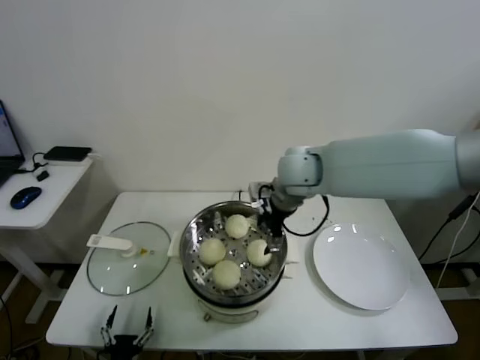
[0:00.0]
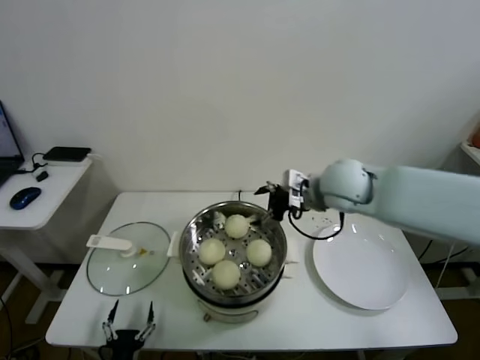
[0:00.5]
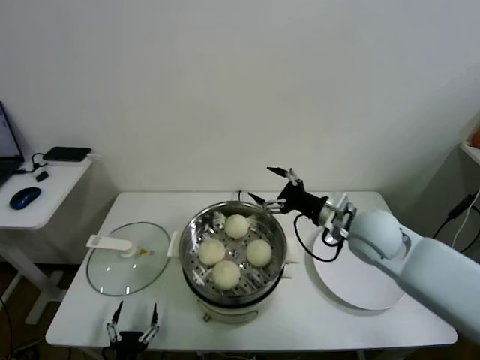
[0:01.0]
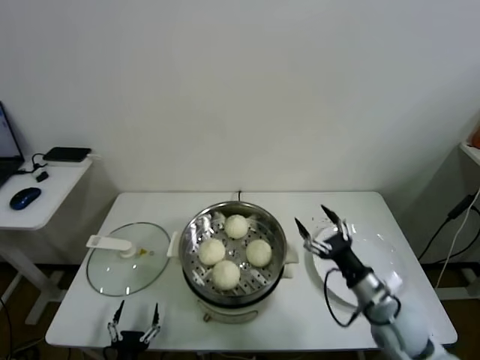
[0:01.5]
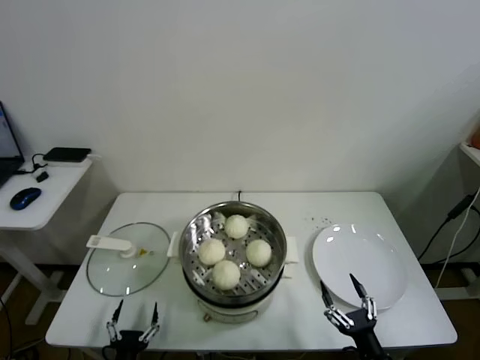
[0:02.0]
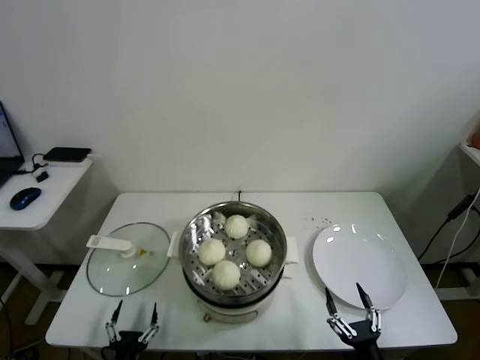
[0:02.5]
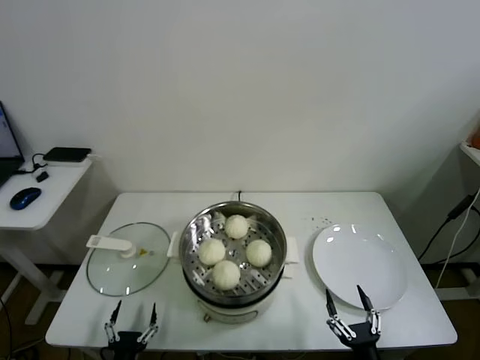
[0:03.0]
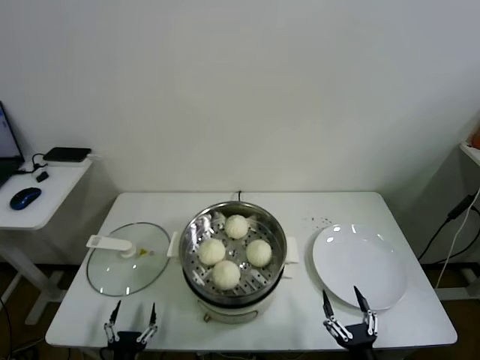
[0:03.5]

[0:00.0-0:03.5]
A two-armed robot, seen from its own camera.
Task of the whole recording: take steamed baozi put them in steamer.
0:00.0 to 0:02.0: The right gripper is displaced backward, downward and to the right by roughly 50 cm.
0:02.0 to 0:03.5: The right gripper moves roughly 5 cm.

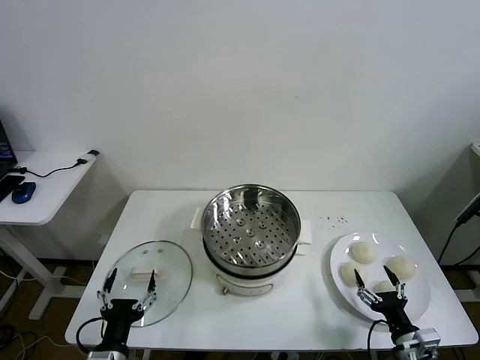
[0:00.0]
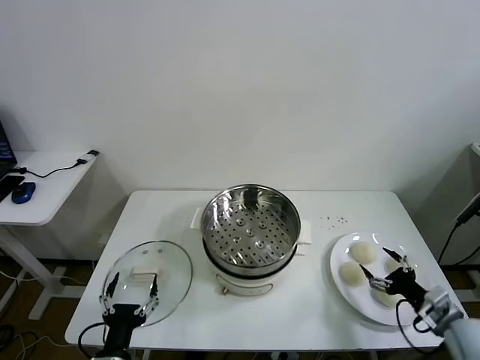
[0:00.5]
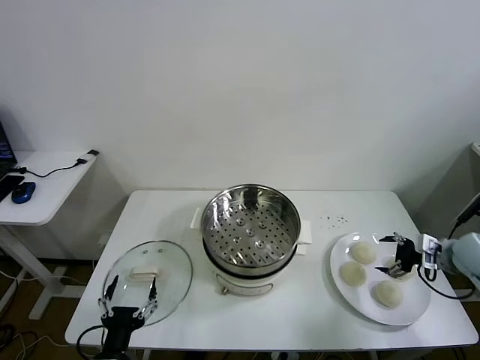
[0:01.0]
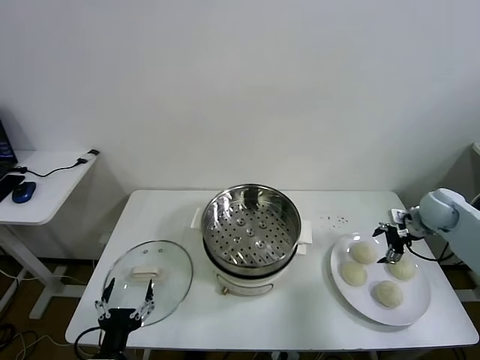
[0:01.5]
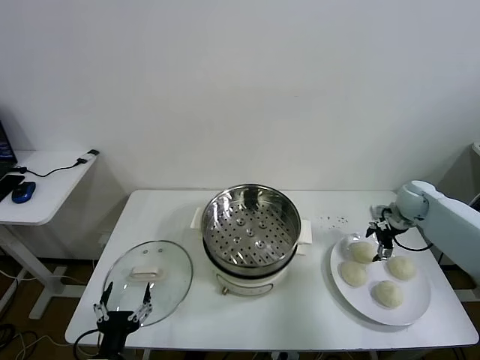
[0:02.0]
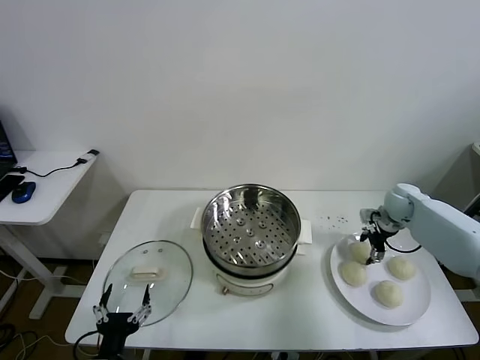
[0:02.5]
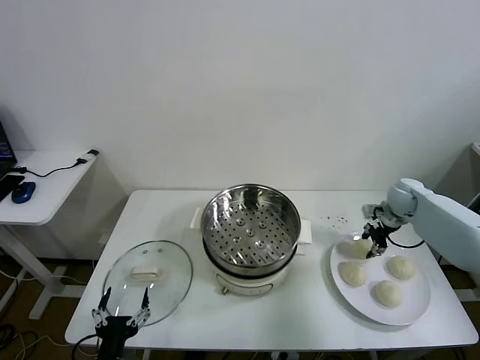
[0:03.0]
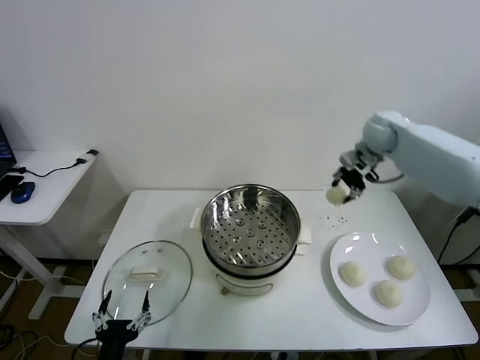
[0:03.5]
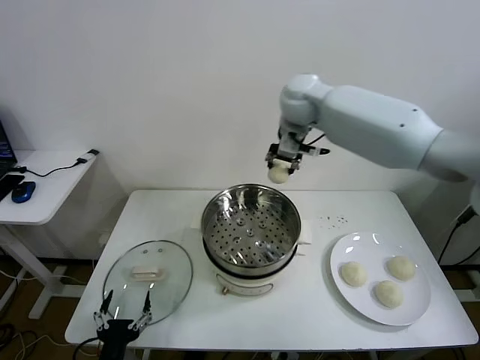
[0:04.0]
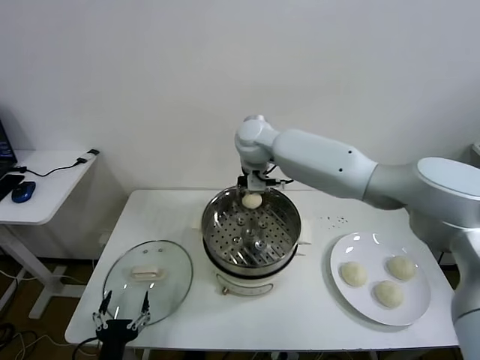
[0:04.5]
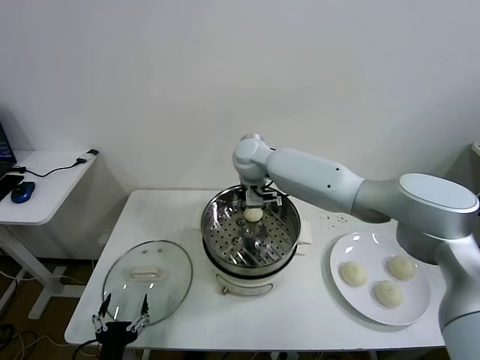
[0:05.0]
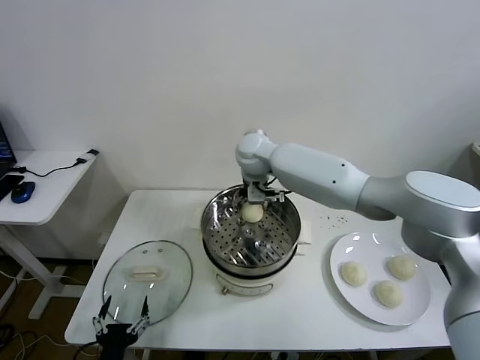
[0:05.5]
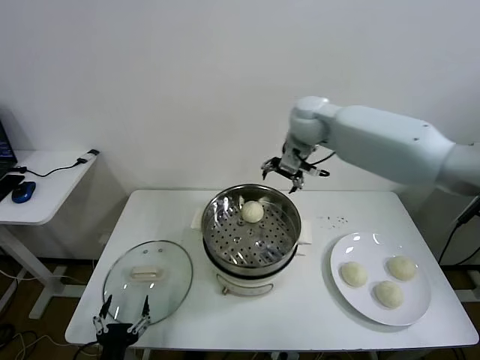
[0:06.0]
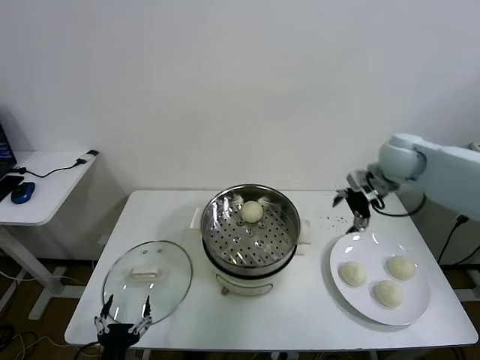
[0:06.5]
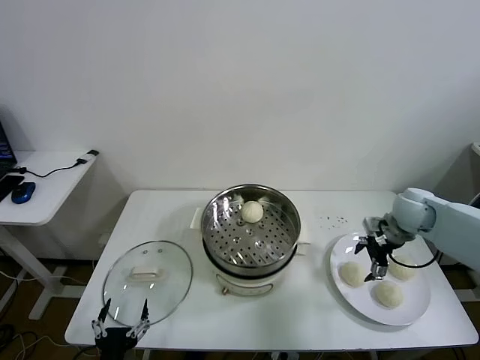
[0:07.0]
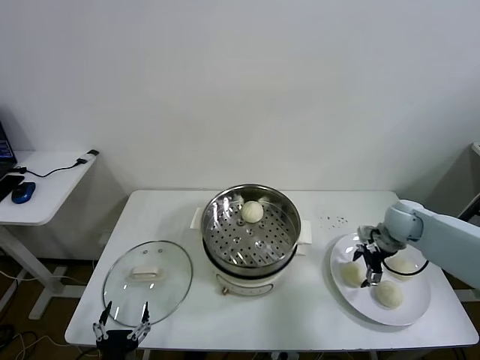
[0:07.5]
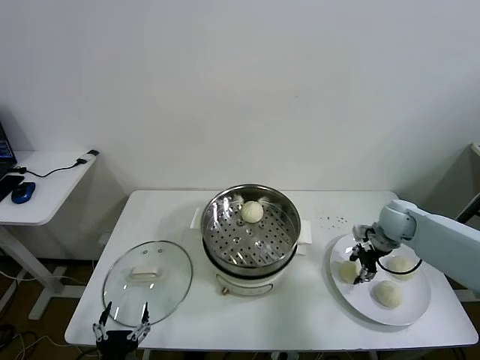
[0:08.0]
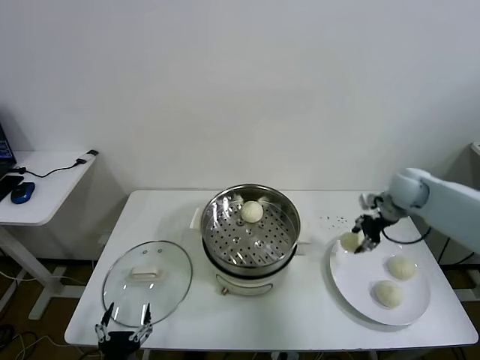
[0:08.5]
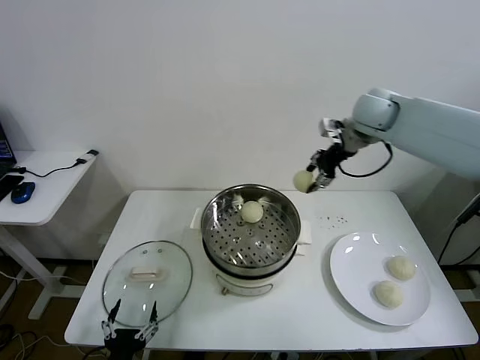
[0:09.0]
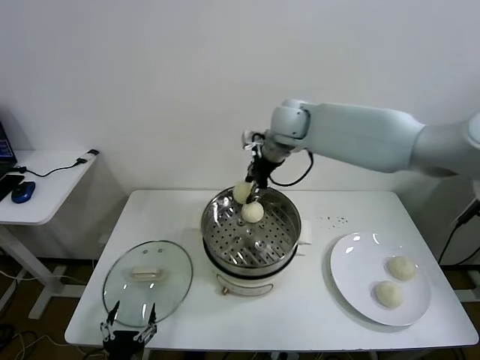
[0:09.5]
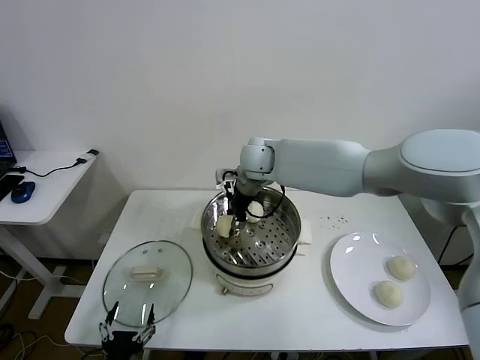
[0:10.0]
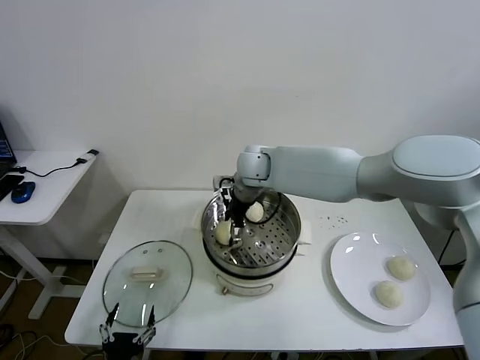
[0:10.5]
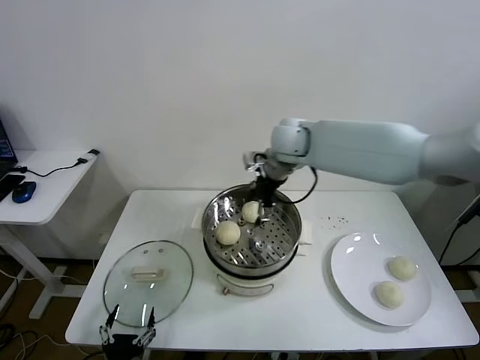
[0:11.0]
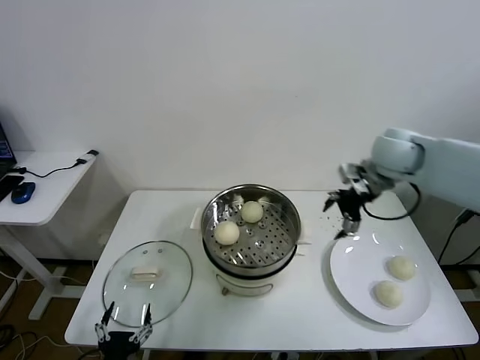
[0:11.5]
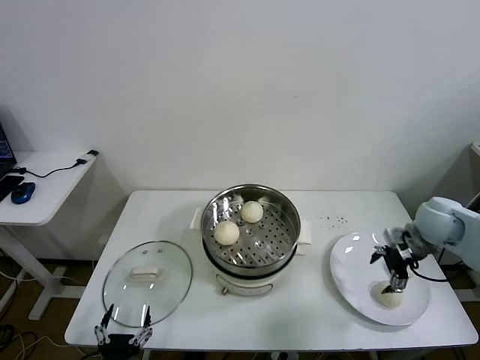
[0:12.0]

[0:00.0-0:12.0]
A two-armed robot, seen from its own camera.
Task of the whole recording: take steamed baozi put them in steamer.
Step, 0:00.0 to 0:02.5: Grasp the baozi in the plate with right gripper.
Step, 0:03.0 to 0:05.5: Place the baozi on the steamer with right gripper.
Step, 0:06.0 to 0:08.0: Grasp the baozi in the plate with right gripper.
Step, 0:08.5 to 0:10.5: Place the baozi on the steamer with right gripper.
0:02.0 to 0:04.0: The right gripper is displaced to the left and upward by some 40 cm, and closes.
0:04.0 to 0:06.0: The right gripper shifts roughly 10 cm to the right, and opens its fingers.
0:06.0 to 0:08.0: The right gripper travels downward and to the right by some 30 cm, and closes up.
0:08.0 to 0:10.0: The right gripper travels to the left by about 35 cm.
0:10.0 to 0:12.0: The right gripper goes some 40 cm to the right, and opens its fingers.

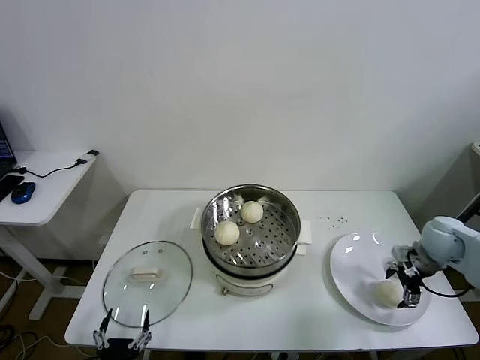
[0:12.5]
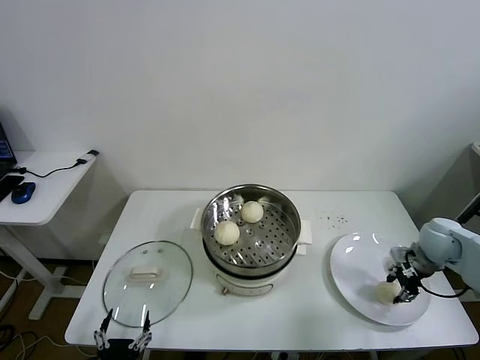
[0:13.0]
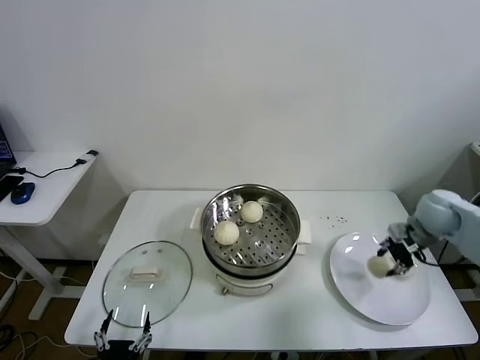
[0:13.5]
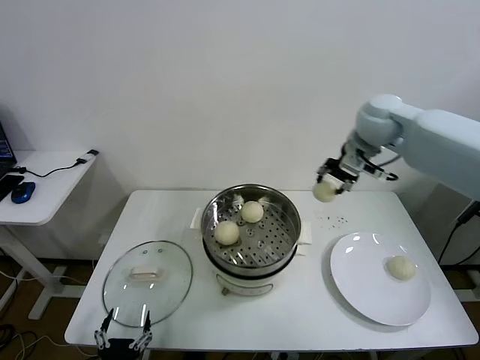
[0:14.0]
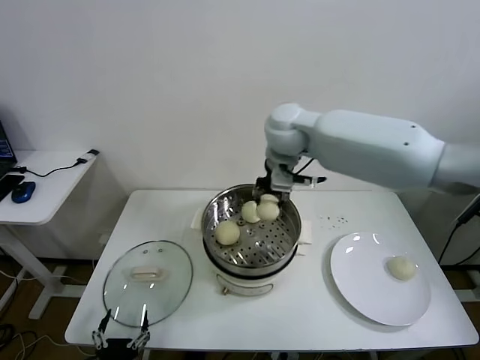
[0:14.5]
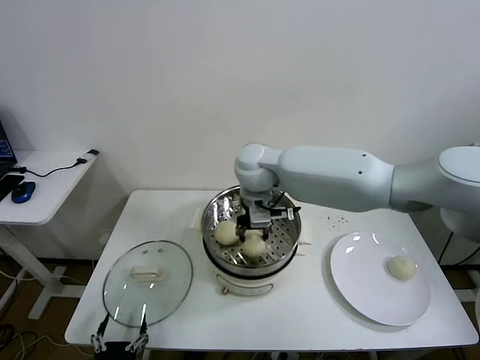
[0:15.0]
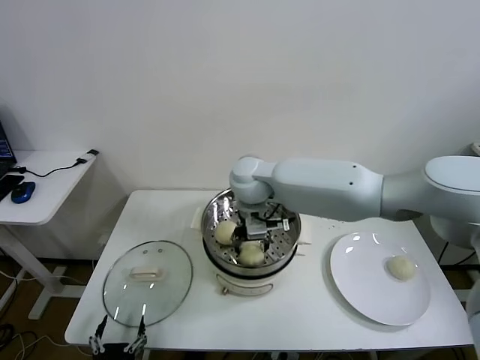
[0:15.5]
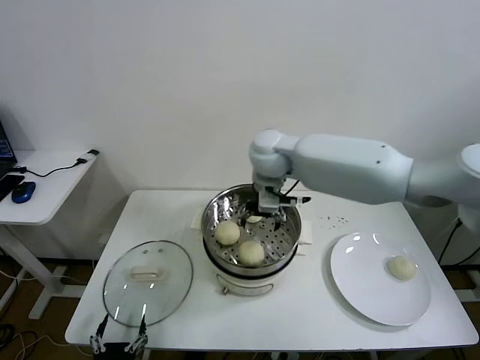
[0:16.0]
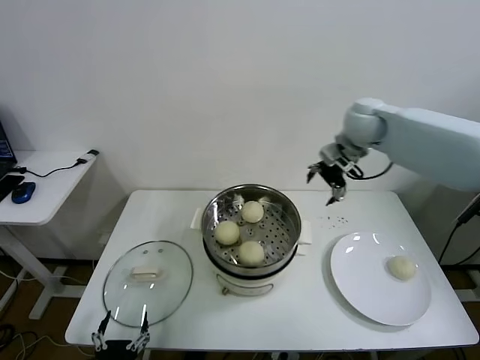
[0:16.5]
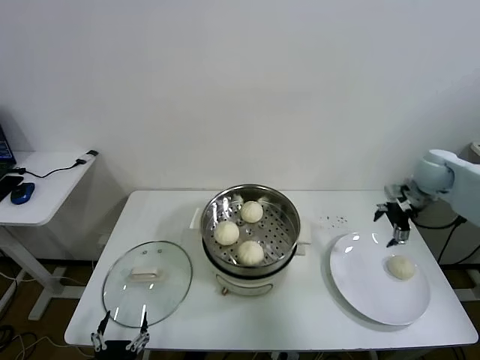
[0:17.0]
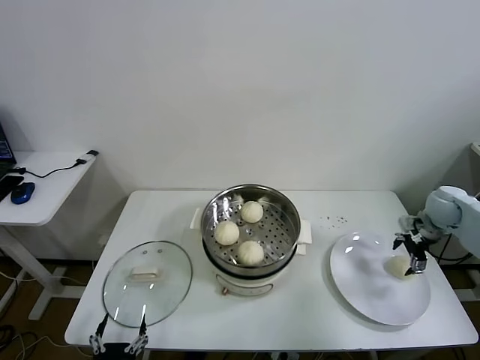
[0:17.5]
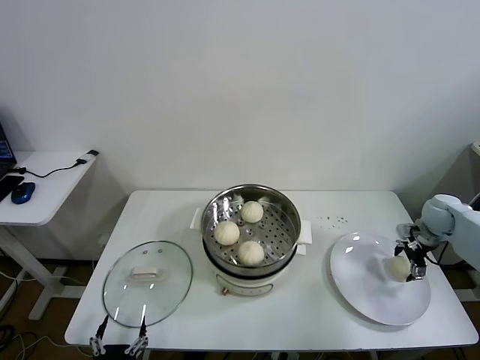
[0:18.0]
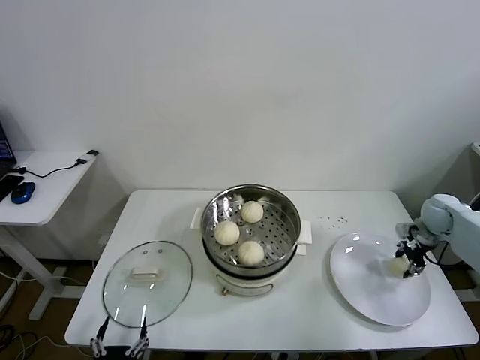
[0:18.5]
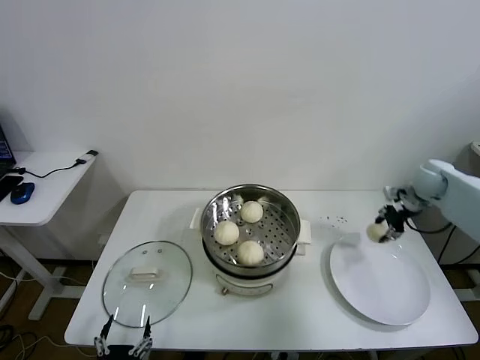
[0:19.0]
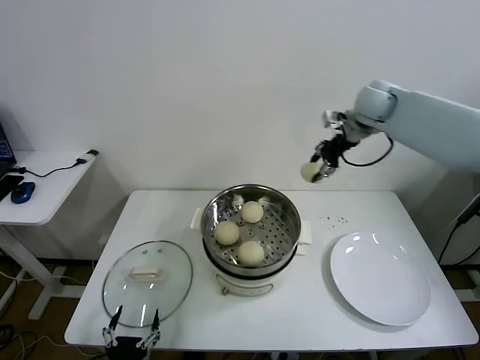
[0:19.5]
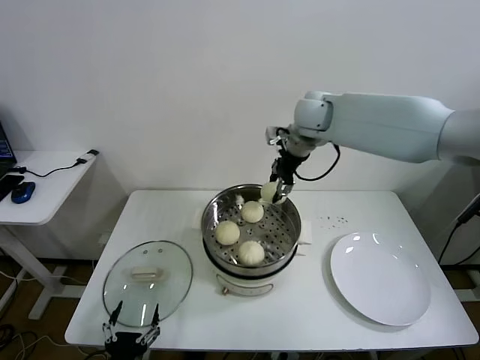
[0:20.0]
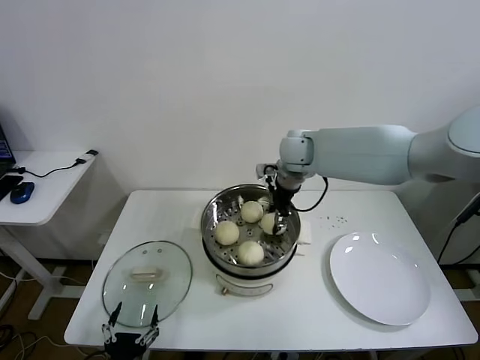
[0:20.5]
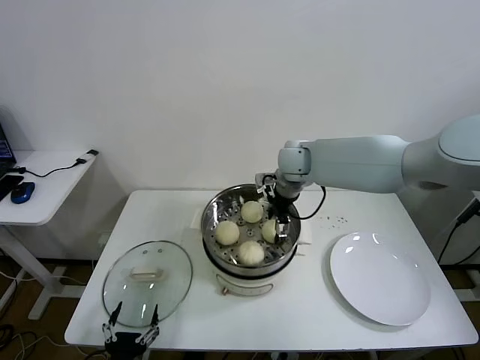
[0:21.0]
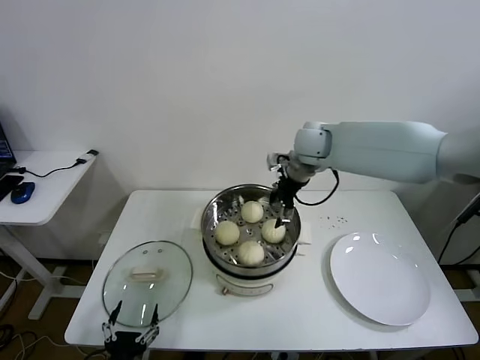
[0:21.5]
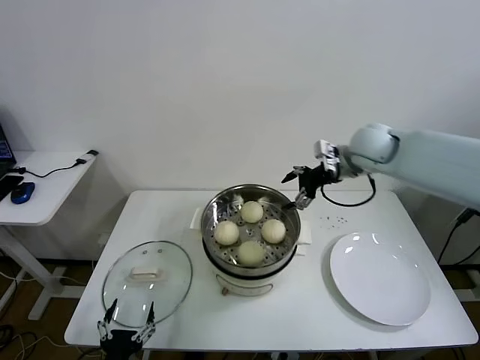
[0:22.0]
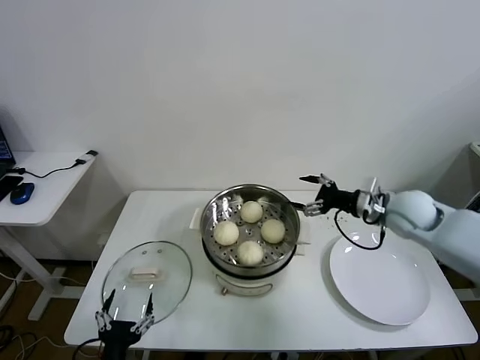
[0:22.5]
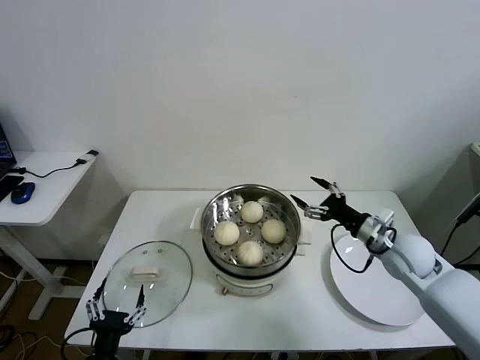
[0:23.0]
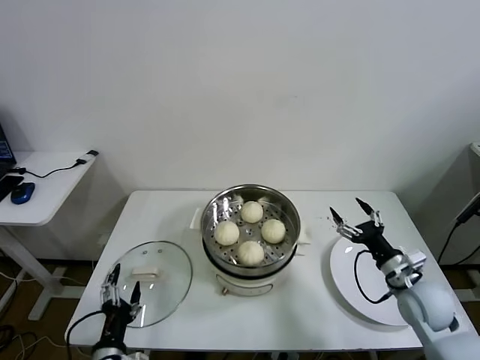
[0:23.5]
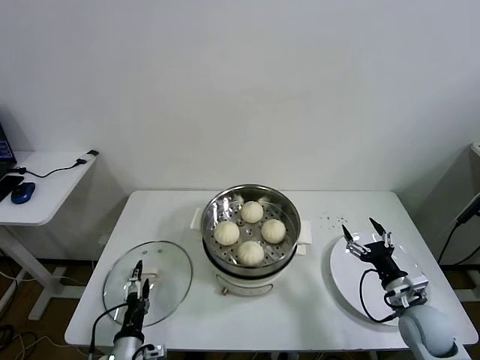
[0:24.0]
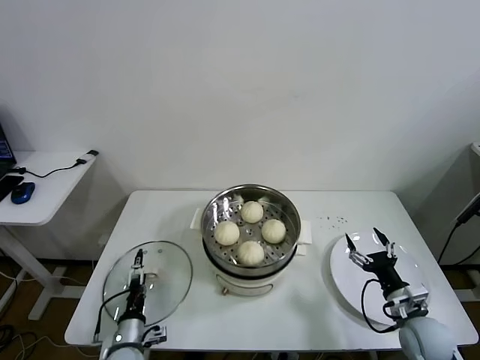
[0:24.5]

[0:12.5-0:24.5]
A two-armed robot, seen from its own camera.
Task of the whole recording: take steamed baozi put them in steamer.
Step, 0:13.0 to 0:15.5: Place the baozi on the steamer with right gripper.
Step, 0:16.0 to 0:18.0: Grasp the baozi in the plate with right gripper.
Step, 0:18.5 to 0:21.5: Place the baozi on the steamer with right gripper.
0:12.5 to 0:14.5: The right gripper travels to the left and upward by roughly 40 cm, and closes its fingers.
0:14.5 to 0:16.5: The right gripper heads to the right, covering approximately 20 cm, and opens up.
0:16.5 to 0:18.5: The right gripper shifts approximately 30 cm to the right and downward, and closes its fingers.
0:18.5 to 0:20.5: The right gripper heads to the left and upward, covering some 40 cm.
0:20.5 to 0:22.5: The right gripper is displaced to the right and backward by approximately 25 cm, and opens up.
0:22.5 to 0:24.5: The left gripper is displaced forward and downward by some 15 cm; the right gripper travels downward and backward by approximately 25 cm.
